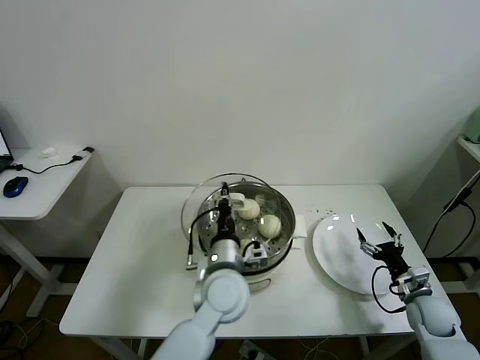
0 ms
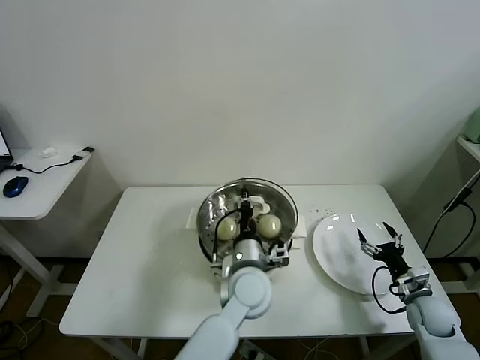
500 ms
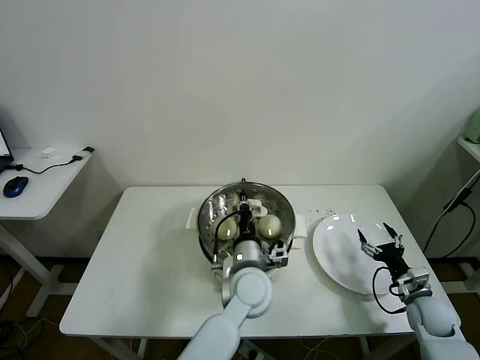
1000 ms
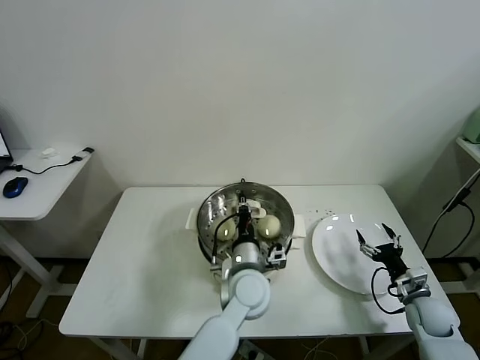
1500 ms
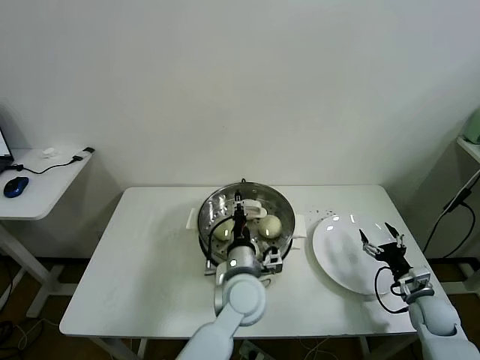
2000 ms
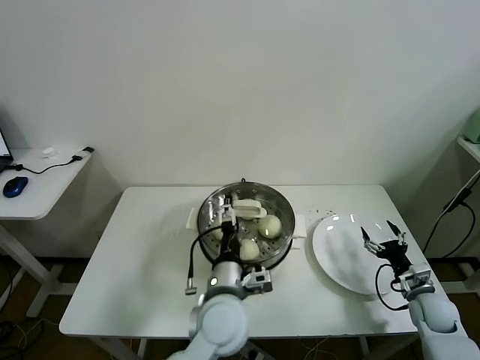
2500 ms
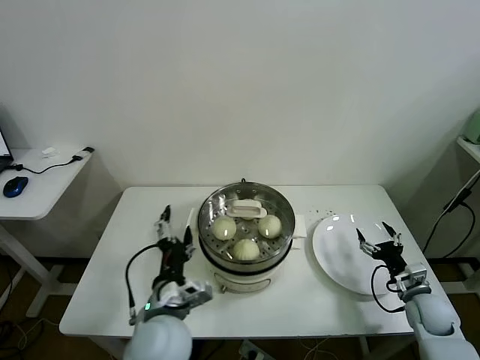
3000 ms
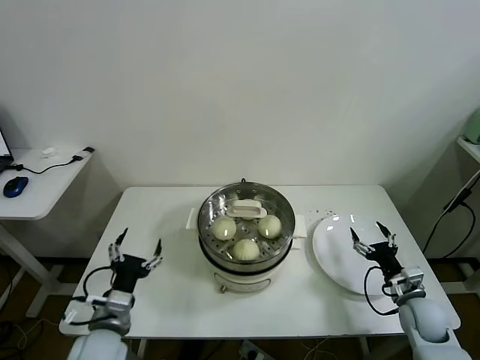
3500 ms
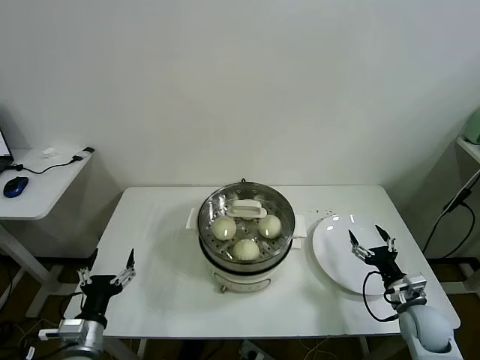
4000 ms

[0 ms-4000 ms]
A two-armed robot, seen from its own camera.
Task of the whole recording: take steamed baozi put them in steamer.
Step, 0 ms to 2000 ms: Place the pot lid on the steamer with left gripper.
0 ms to 2000 ms: The left gripper moves some 5 cm.
2000 ms to 4000 ms: The left gripper moves to the left and backward, roughly 35 cm, and opens; the right gripper shifts by roughly 5 cm.
